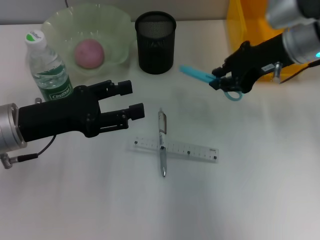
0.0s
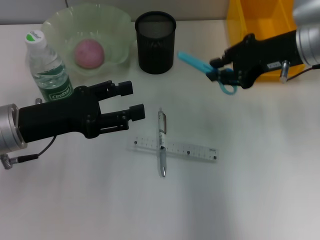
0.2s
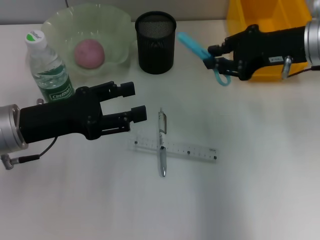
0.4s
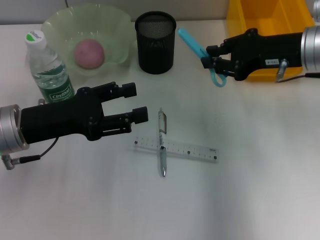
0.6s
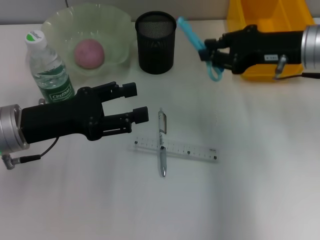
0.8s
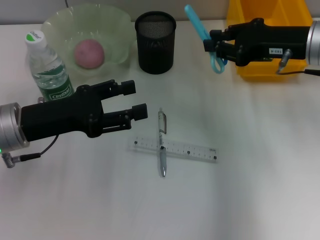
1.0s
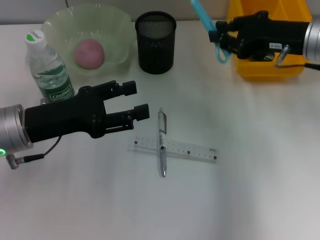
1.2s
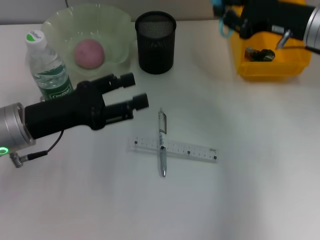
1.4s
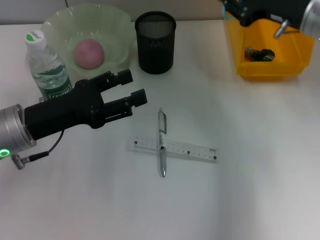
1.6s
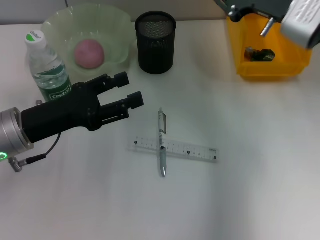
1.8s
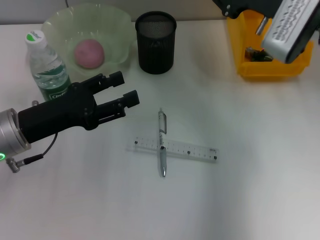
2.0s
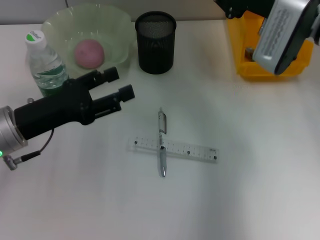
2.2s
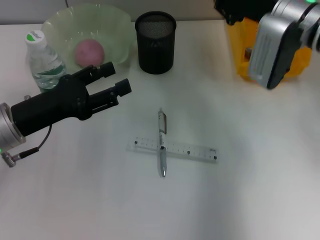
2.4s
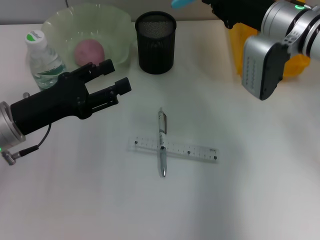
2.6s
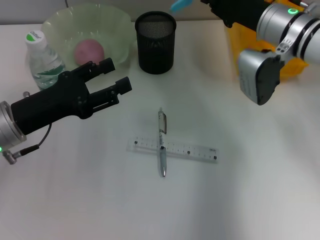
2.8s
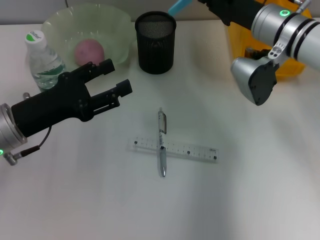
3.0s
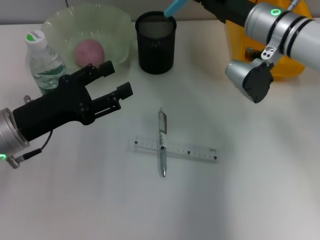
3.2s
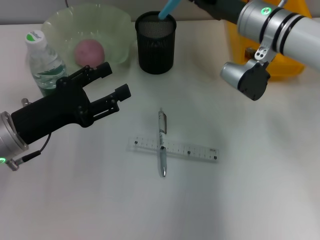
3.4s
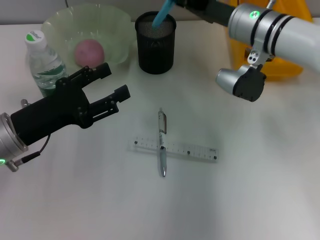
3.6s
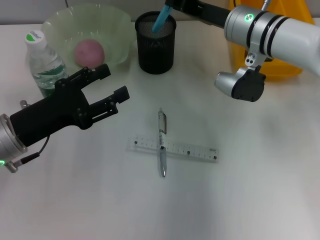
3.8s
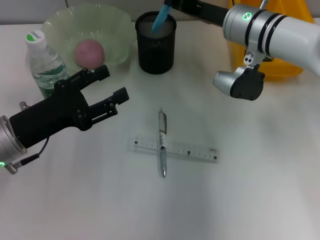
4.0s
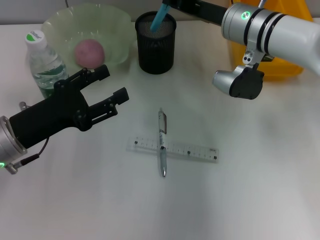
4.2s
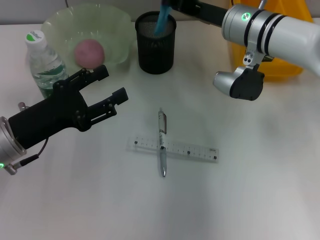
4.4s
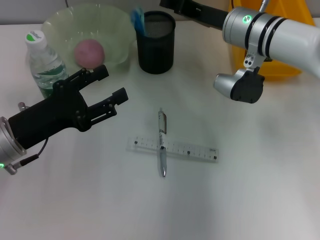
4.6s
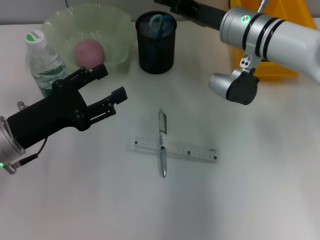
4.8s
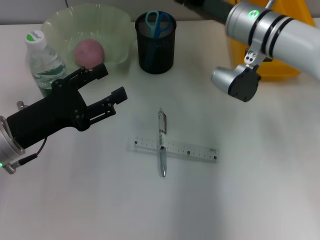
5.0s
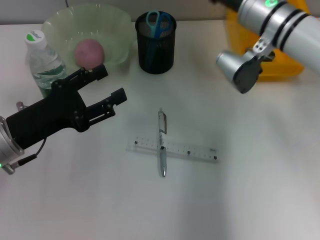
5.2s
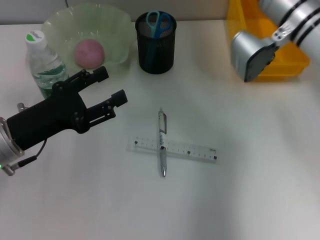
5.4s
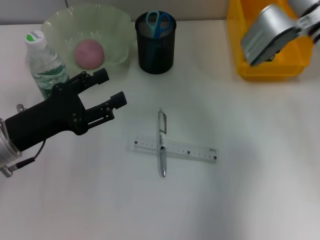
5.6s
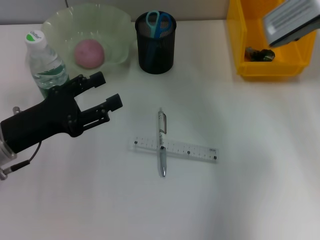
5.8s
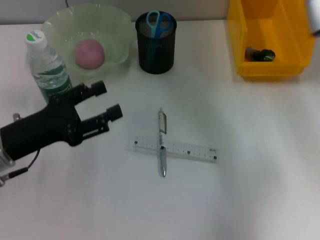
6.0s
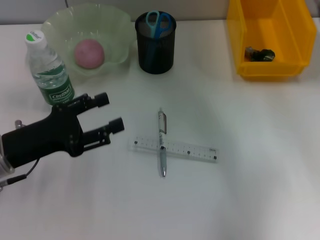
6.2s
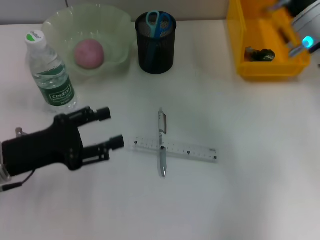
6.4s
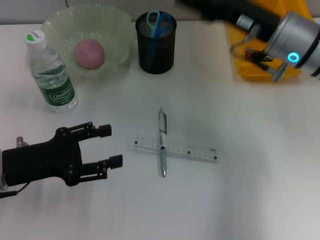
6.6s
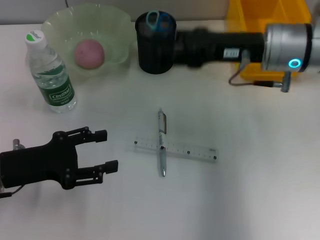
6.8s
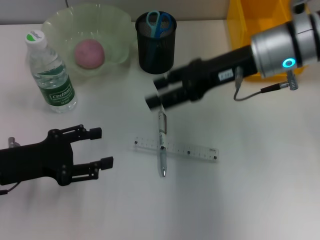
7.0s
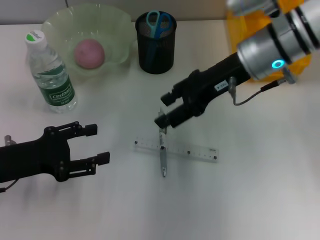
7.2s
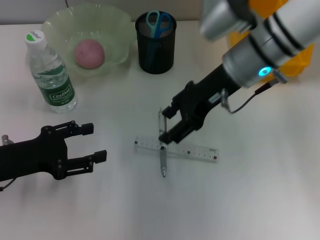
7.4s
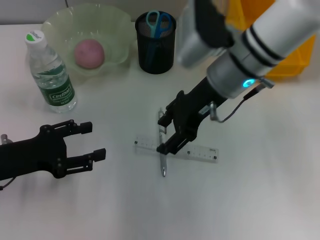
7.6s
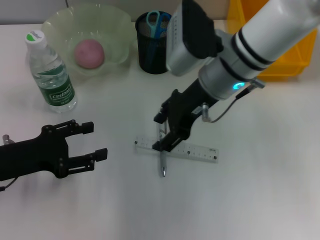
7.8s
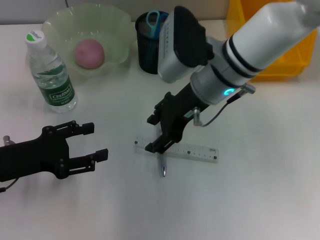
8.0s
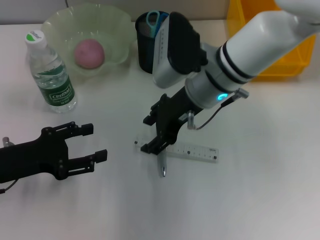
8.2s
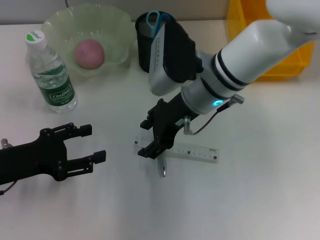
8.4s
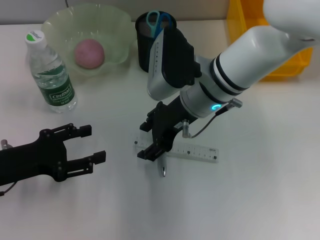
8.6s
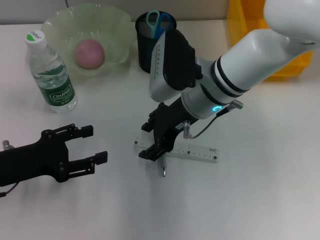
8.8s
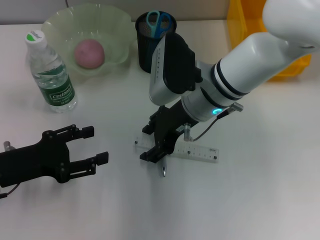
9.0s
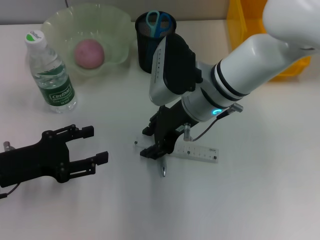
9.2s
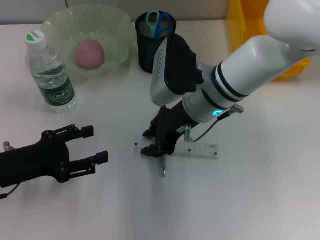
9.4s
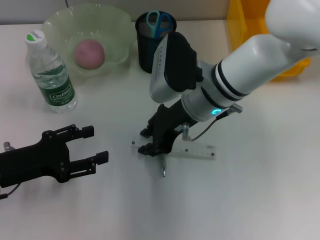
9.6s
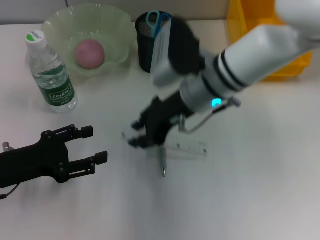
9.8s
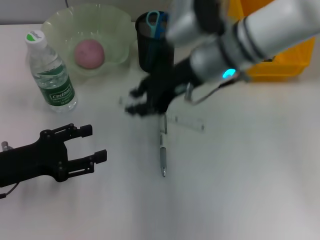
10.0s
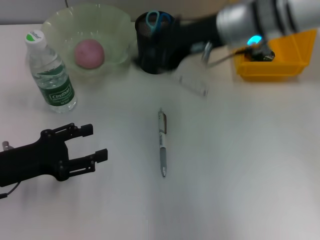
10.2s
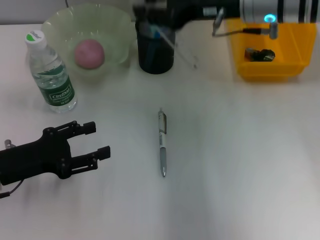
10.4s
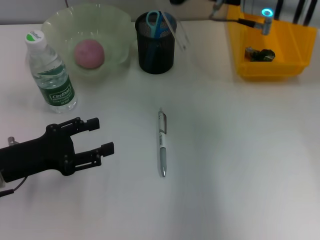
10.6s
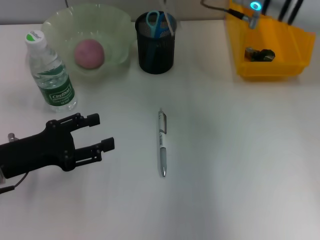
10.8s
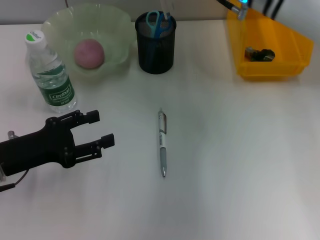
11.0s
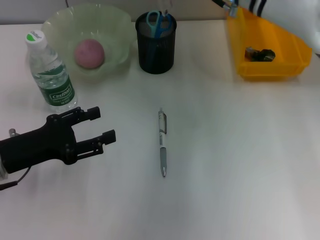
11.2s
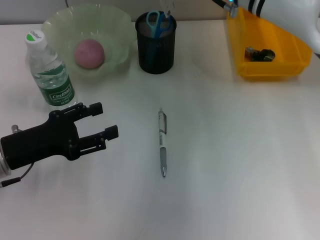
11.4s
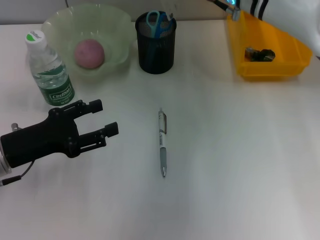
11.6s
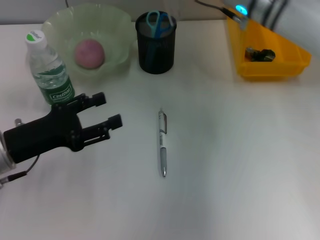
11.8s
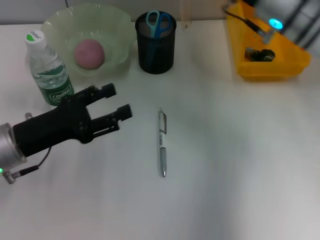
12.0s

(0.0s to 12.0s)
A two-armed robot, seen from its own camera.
Step, 0.0s - 4.8s: Place the blue scissors into the pen holder with the right hand.
Step, 5.0s - 9.4s: Grab the ruler with the right hand.
1.6s - 3.0s: The right gripper moves to the left, roughly 5 cm.
4.4s - 6.0s: The right gripper is displaced to the right by roughly 10 cm, and opens up.
6.0s - 7.6s: The right gripper shifts some 15 cm to the left.
7.6s - 9.0s: The right gripper ends up some 5 cm from where it was.
9.0s - 10.4s: The right gripper shifts approximately 10 cm upward and to the right, and closes its fingers.
10.4s - 12.0s: The right gripper changes place by some 5 cm.

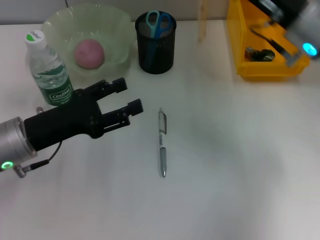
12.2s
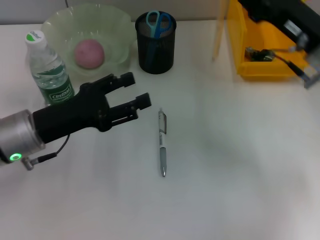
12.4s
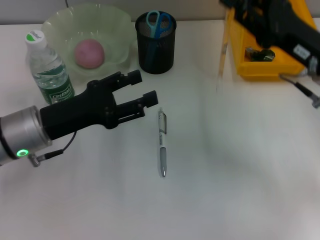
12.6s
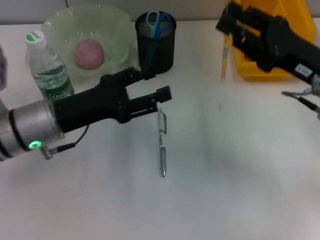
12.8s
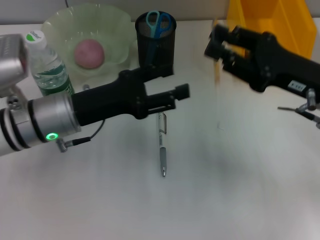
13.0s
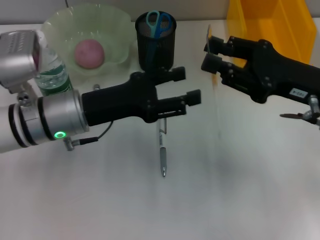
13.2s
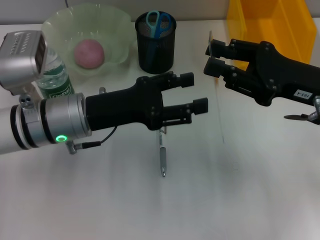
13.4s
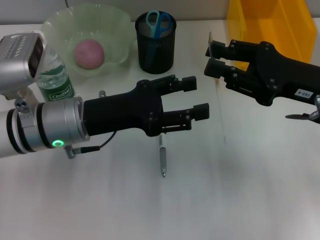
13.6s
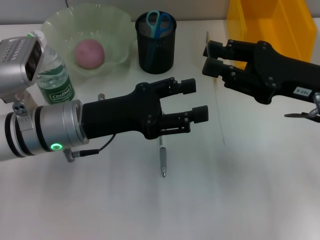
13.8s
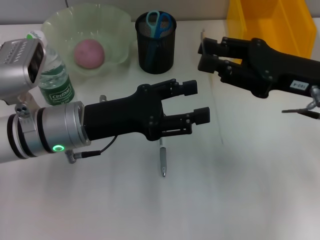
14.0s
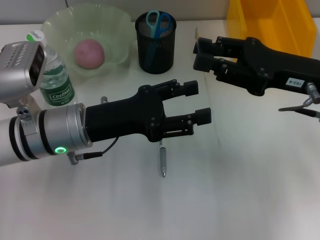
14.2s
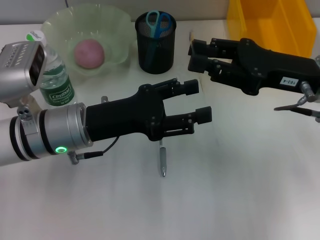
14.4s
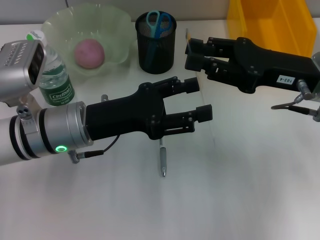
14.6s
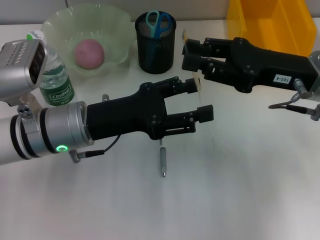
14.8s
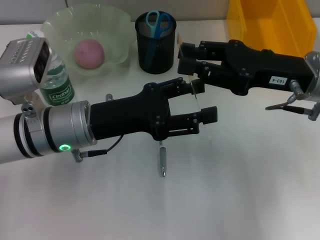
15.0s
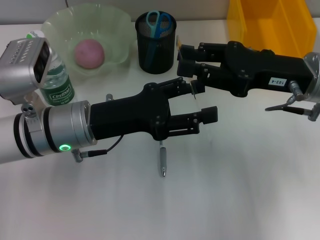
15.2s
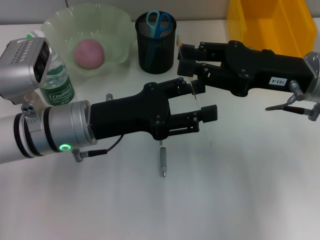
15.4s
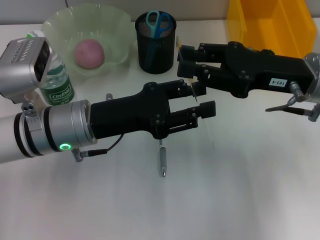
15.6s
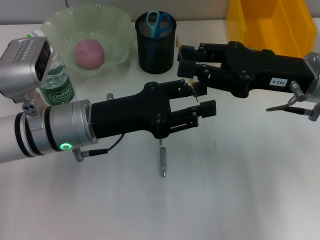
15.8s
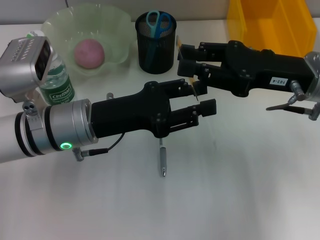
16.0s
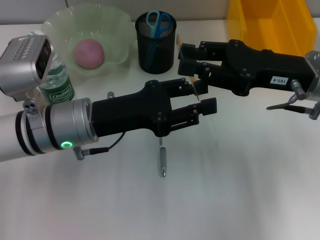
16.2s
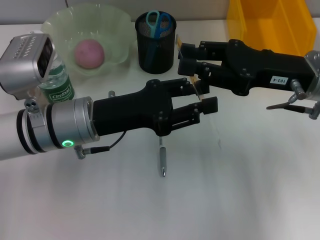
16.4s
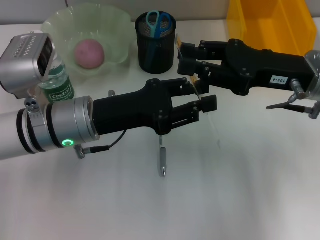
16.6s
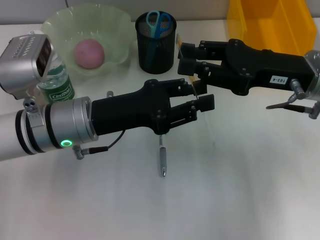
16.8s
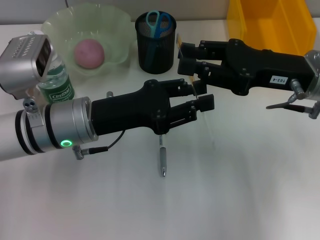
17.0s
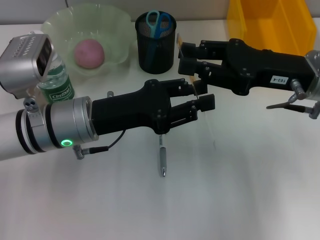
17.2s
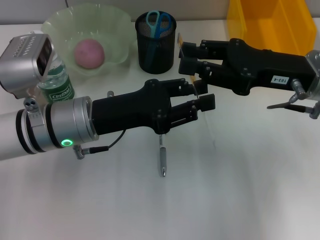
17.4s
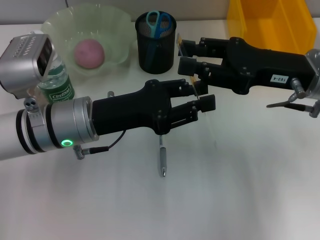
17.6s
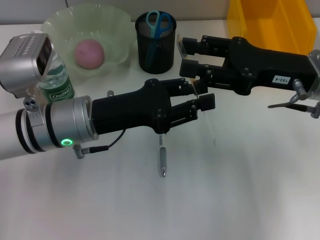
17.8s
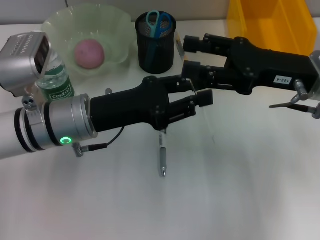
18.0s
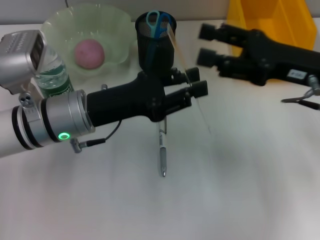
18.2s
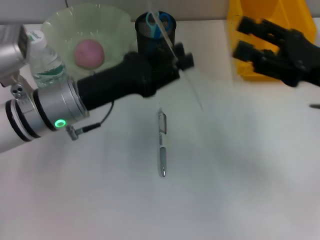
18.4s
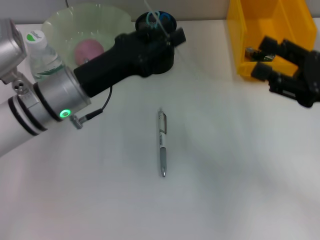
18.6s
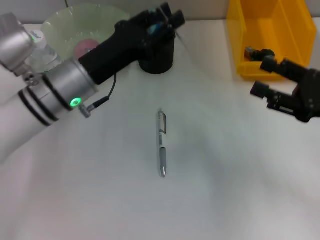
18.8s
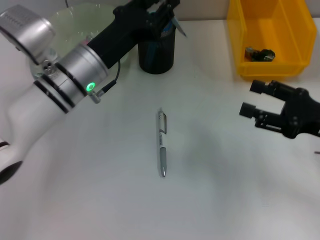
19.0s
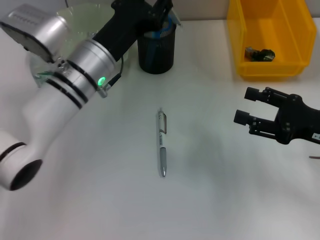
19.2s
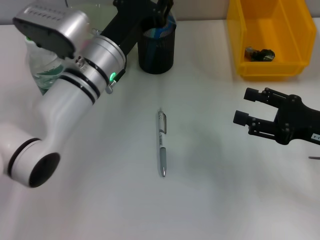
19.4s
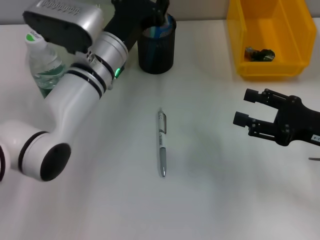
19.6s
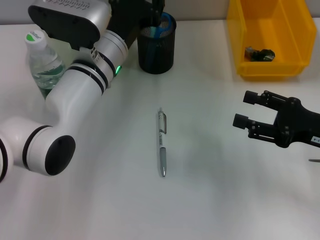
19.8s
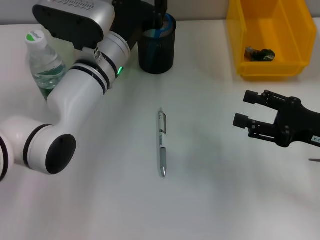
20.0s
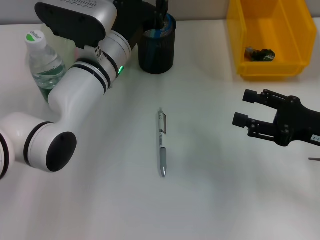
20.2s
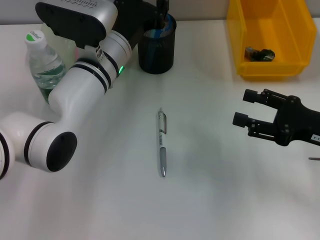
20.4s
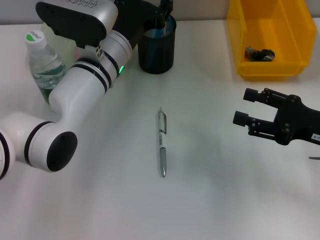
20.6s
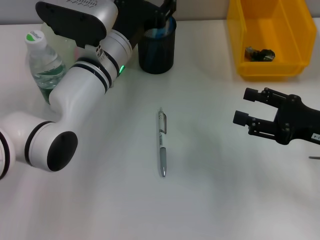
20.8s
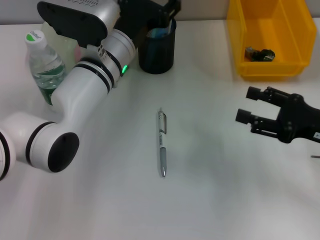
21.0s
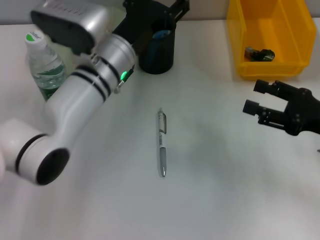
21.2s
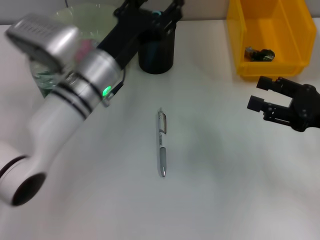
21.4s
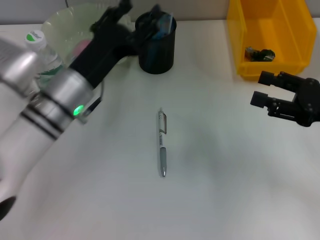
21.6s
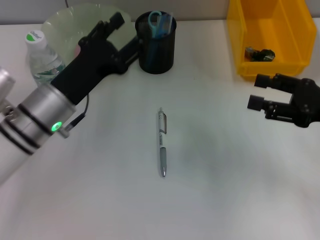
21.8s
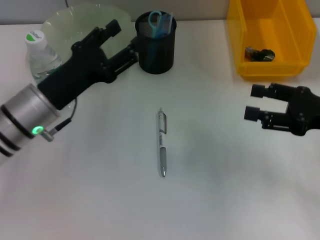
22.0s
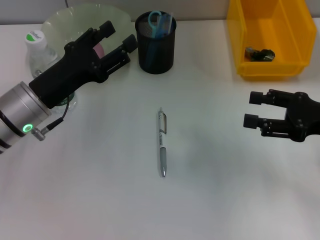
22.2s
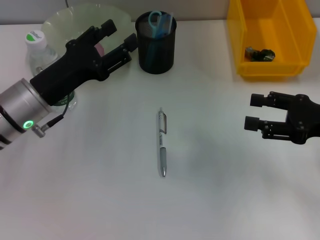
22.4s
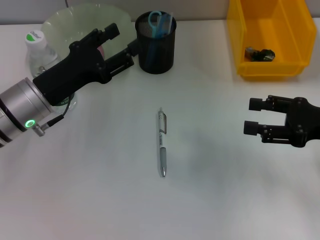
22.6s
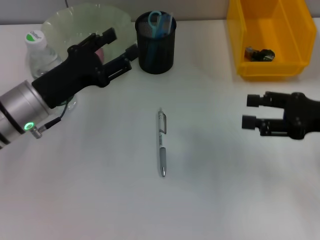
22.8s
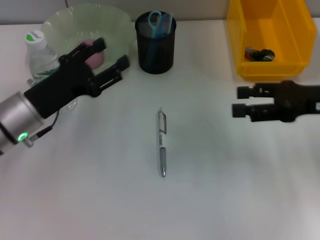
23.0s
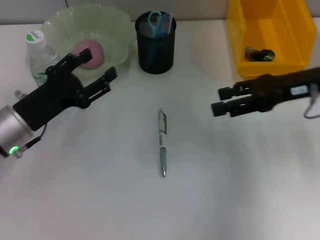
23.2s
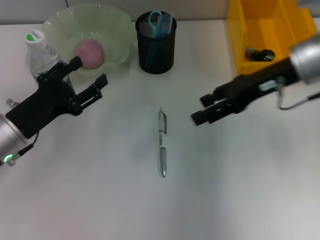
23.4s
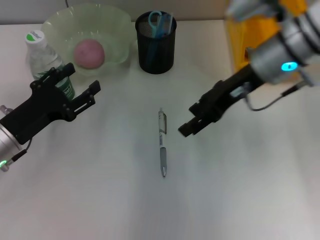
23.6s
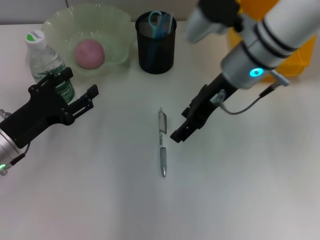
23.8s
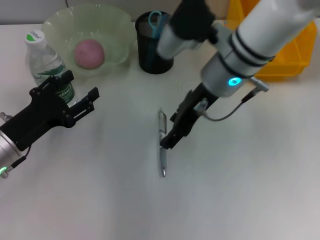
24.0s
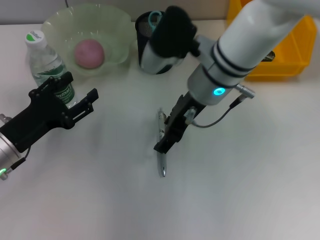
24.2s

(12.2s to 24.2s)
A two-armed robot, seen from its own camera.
Step, 12.2s - 18.0s: Pass the ruler from the right hand to the left hand.
Step, 18.2s - 21.6s: Place the ruler into the pen holder with the left hand.
12.2s - 13.8s: The left gripper is displaced to the right by approximately 5 cm; the right gripper heads backward, covering roughly 5 cm.
13.8s - 15.2s: There are only small adjustments of the grippers.
15.2s - 16.6s: The left gripper closes up.
16.6s - 18.2s: The right gripper opens up.
18.2s - 19.8s: The left gripper is displaced forward and to the right by roughly 10 cm. Meanwhile the right gripper is displaced downward, backward and to the right by some 10 cm.
19.8s - 21.2s: The left gripper opens its fingers.
21.2s - 22.6s: The left gripper heads to the left, covering approximately 10 cm.
22.6s - 24.2s: The left gripper heads backward and to the left, covering roughly 5 cm, while the right gripper travels to the left by approximately 25 cm.
